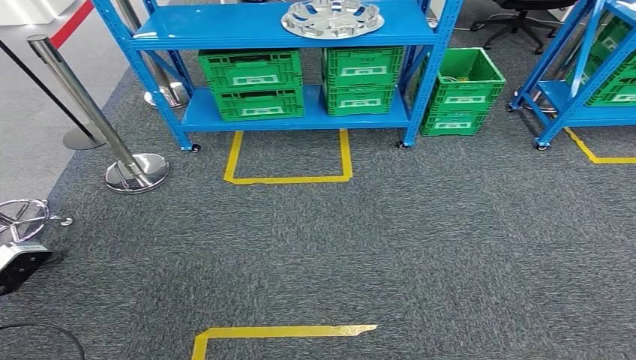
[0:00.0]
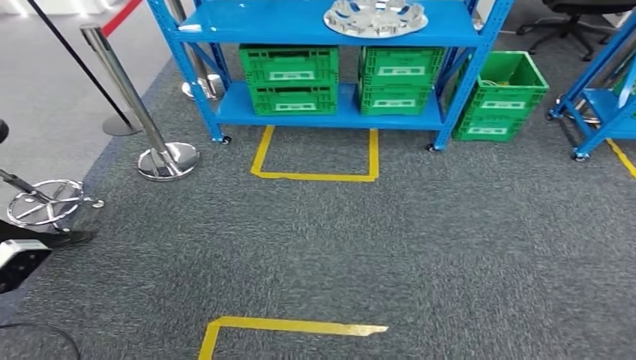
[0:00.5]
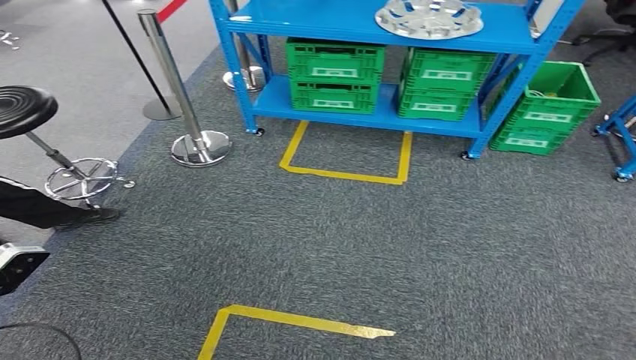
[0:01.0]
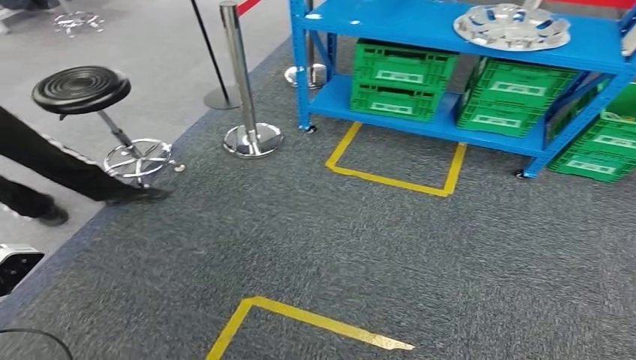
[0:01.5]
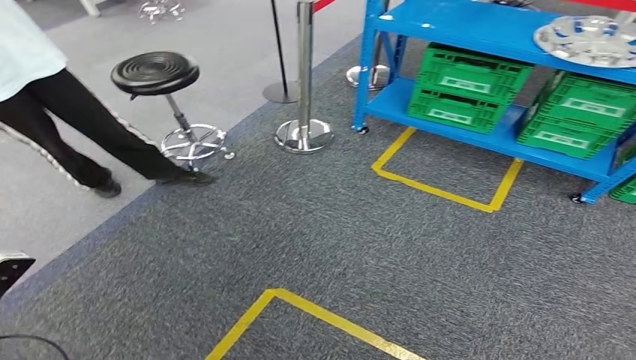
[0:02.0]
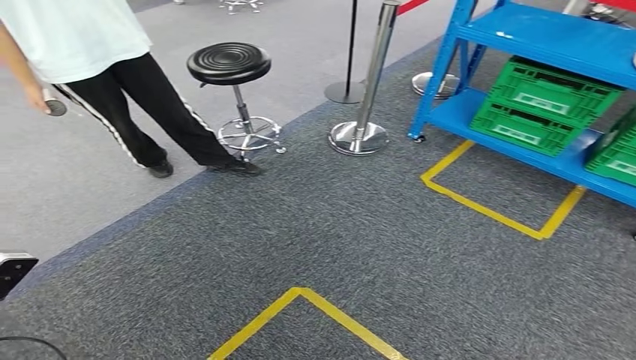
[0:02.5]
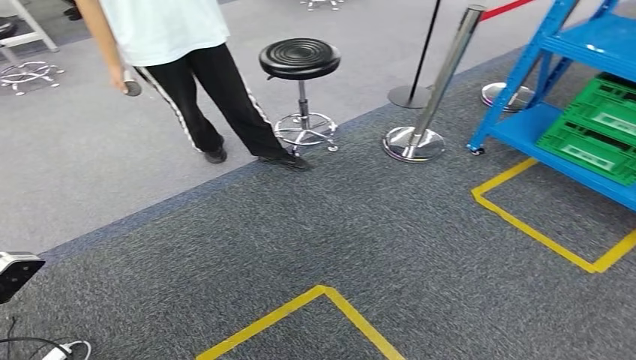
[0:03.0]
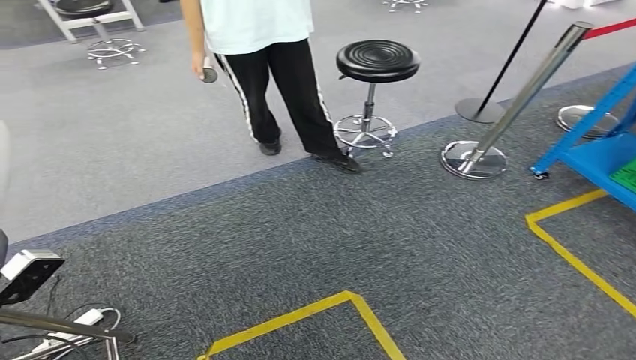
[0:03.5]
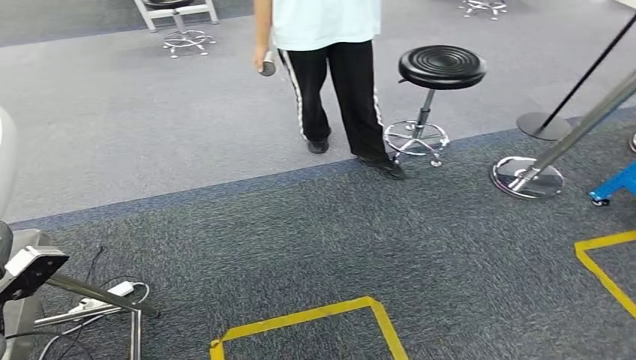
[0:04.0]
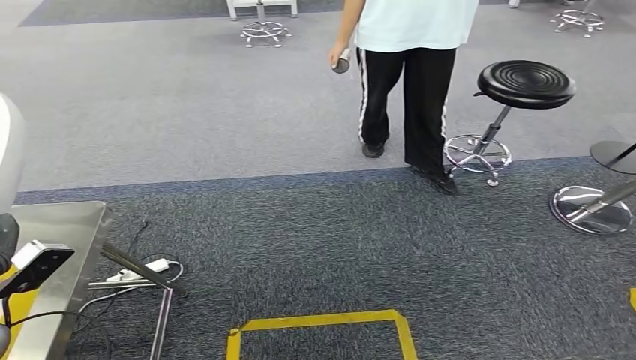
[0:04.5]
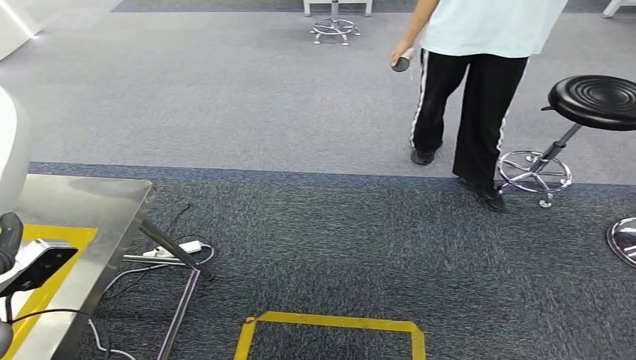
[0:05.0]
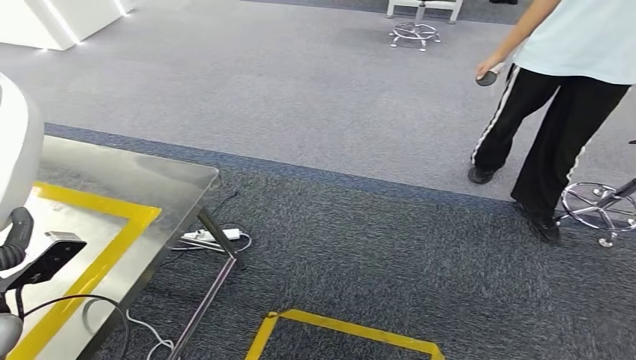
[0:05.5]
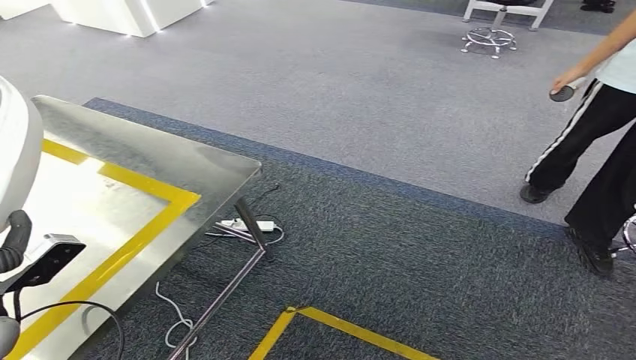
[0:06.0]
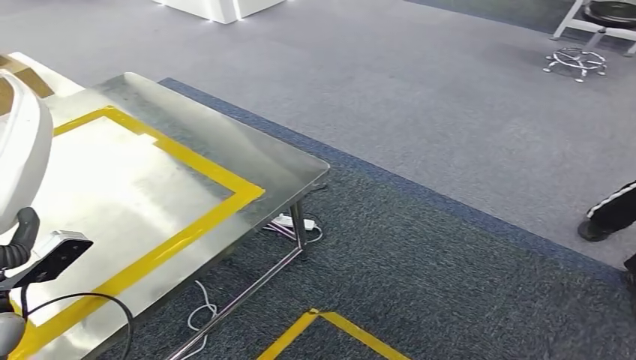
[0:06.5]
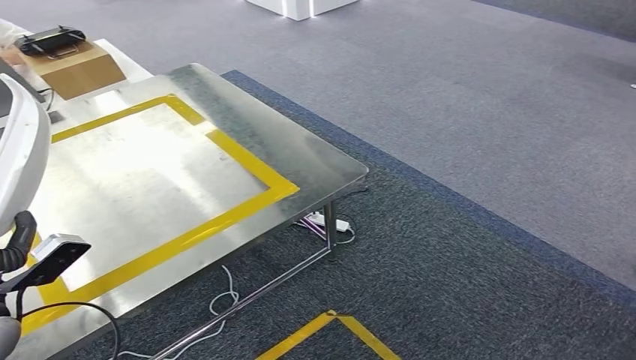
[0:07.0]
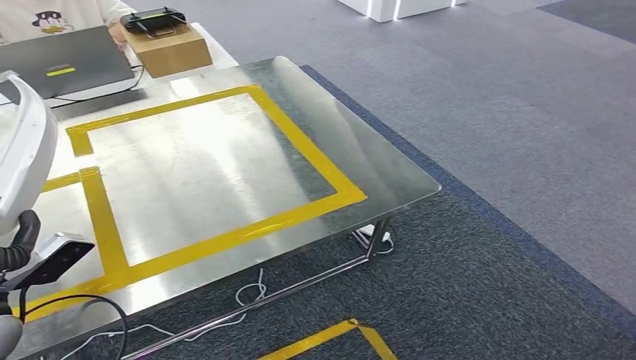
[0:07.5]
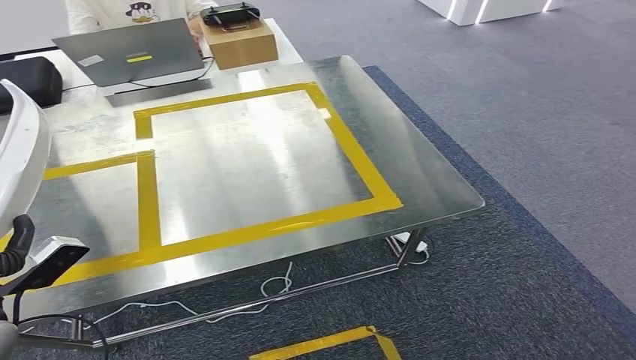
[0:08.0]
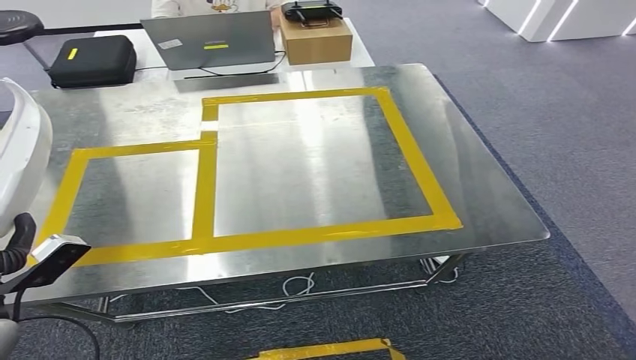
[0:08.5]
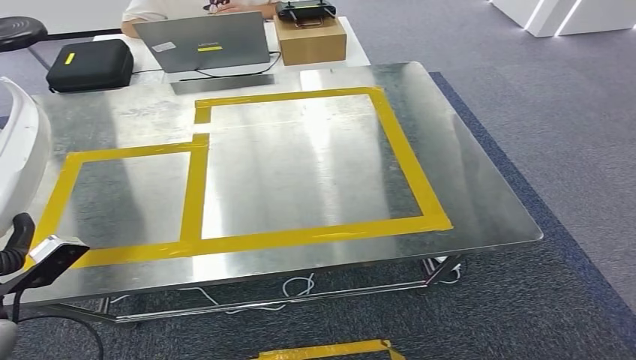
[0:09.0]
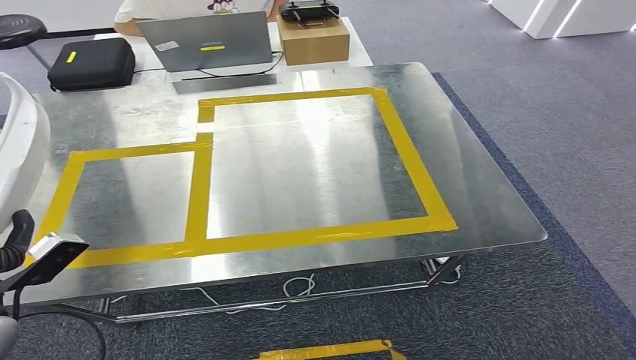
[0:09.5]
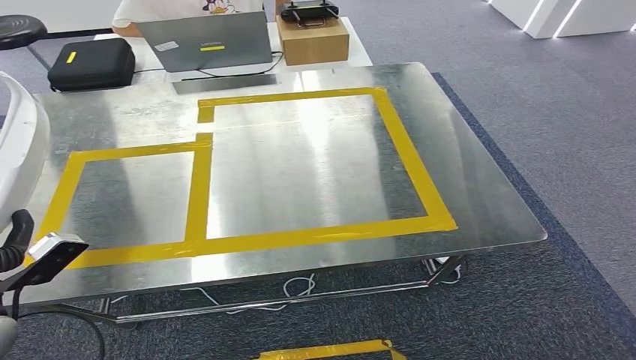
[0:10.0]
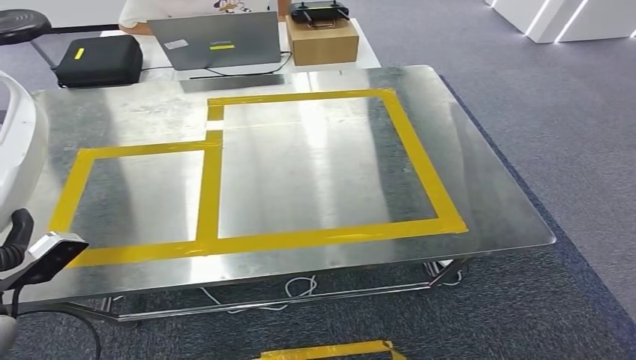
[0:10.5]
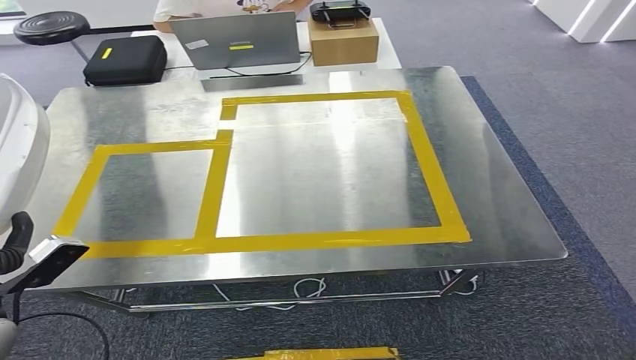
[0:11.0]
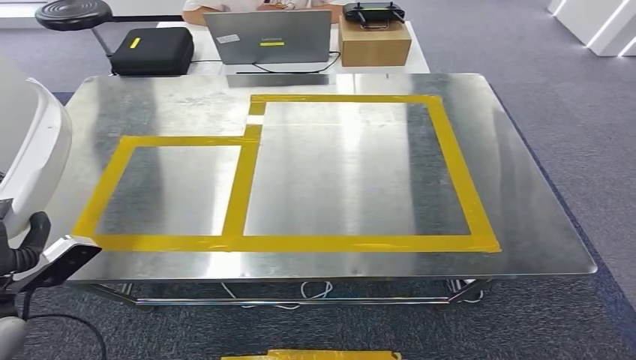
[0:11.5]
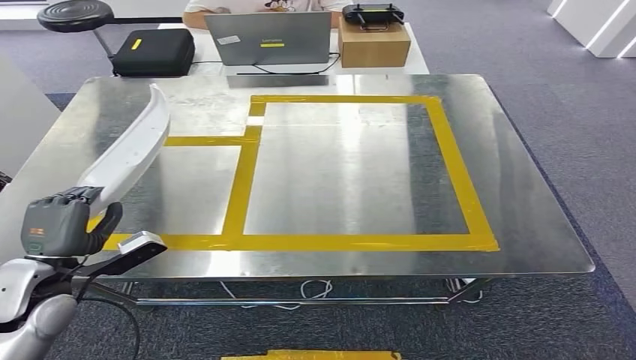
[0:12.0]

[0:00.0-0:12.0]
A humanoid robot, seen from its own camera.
Step, 0:00.0 to 0:08.5: Move the small component to the workbench.

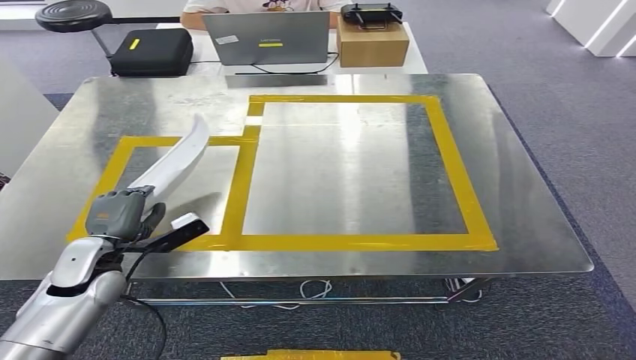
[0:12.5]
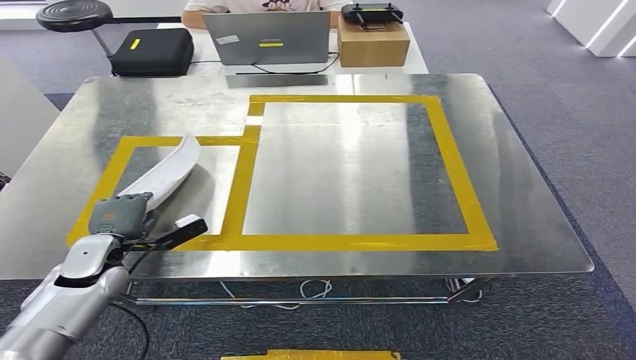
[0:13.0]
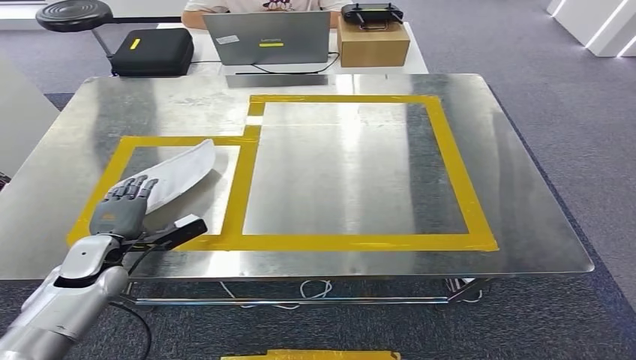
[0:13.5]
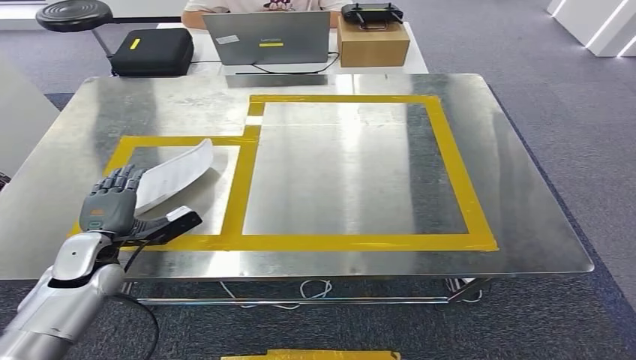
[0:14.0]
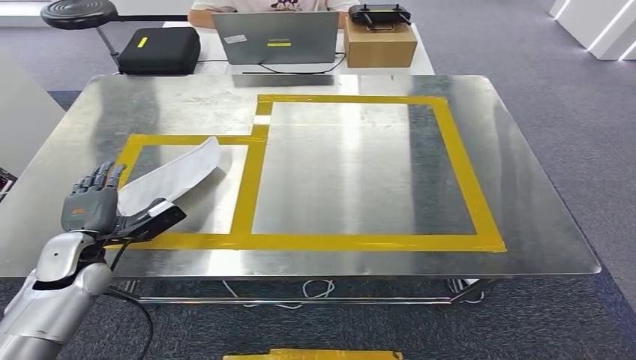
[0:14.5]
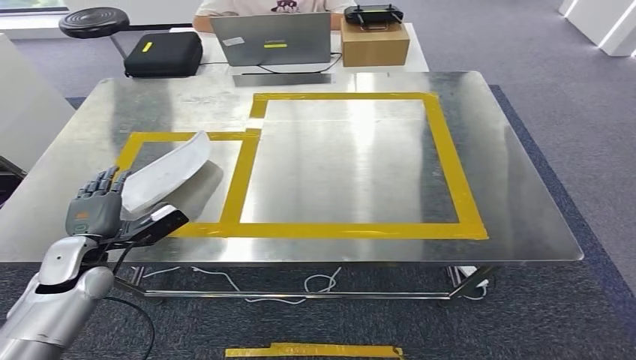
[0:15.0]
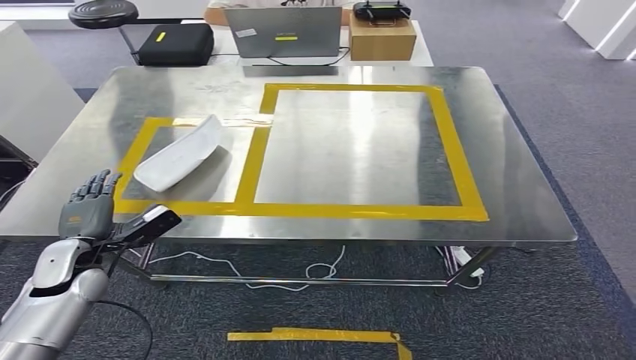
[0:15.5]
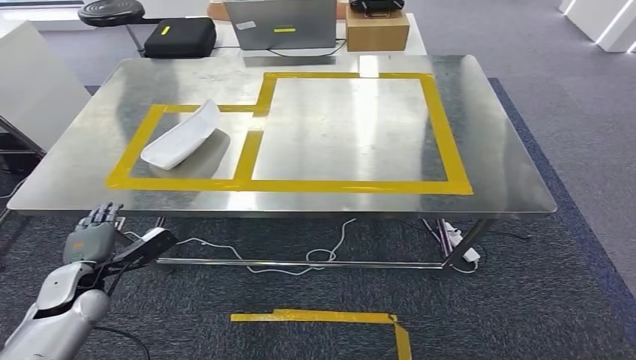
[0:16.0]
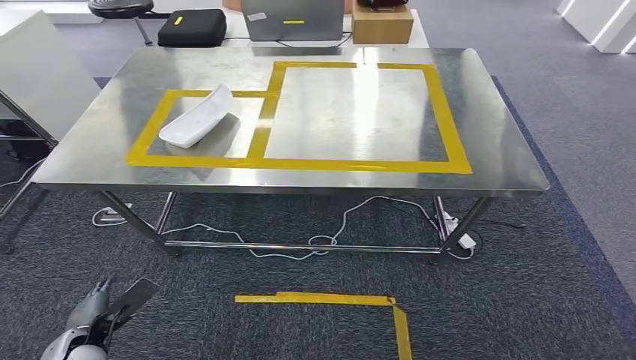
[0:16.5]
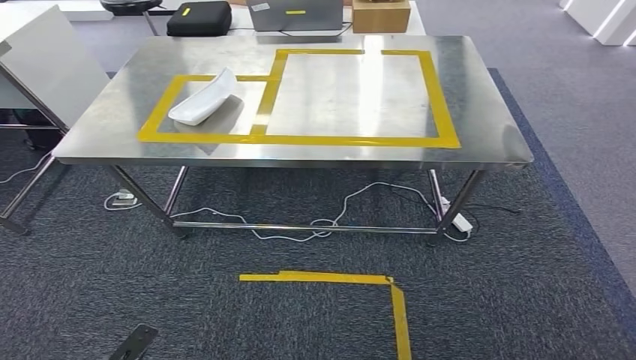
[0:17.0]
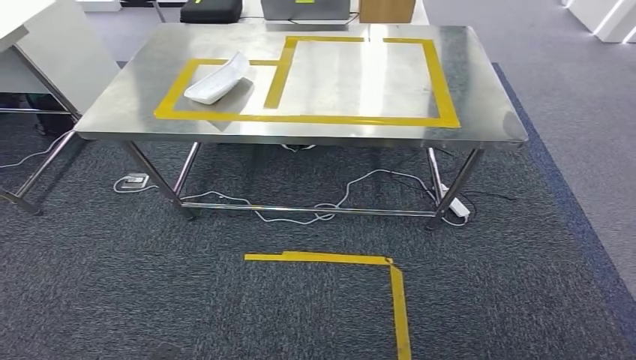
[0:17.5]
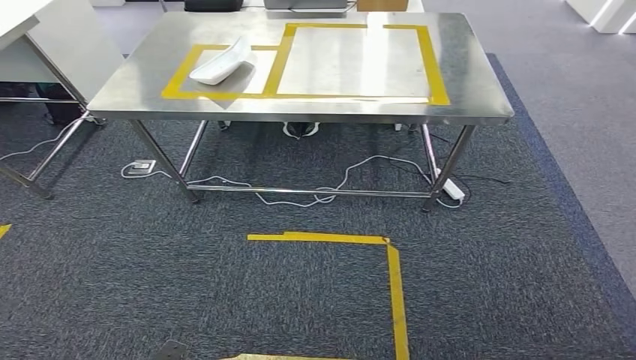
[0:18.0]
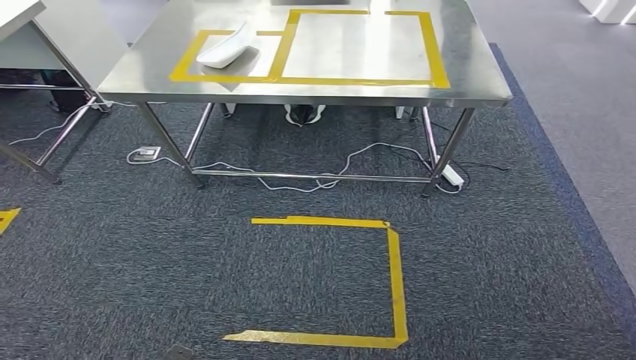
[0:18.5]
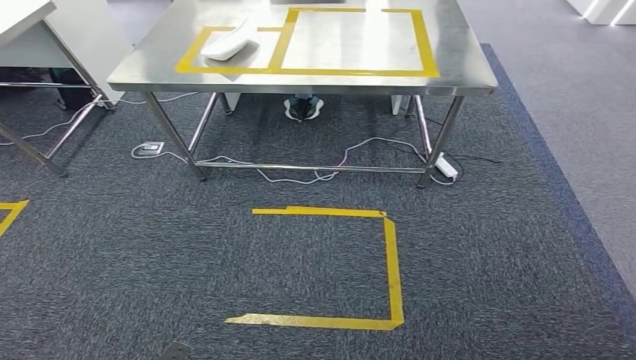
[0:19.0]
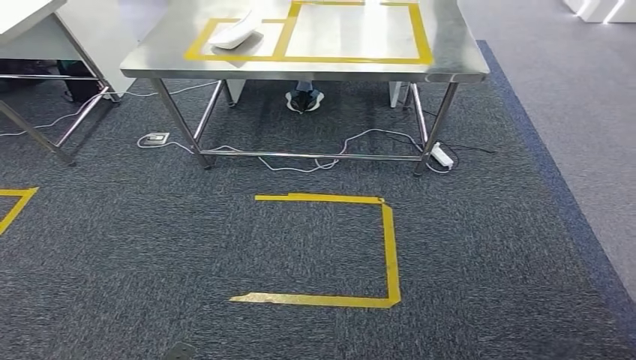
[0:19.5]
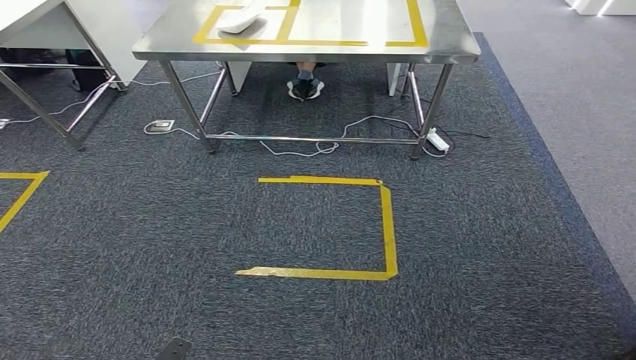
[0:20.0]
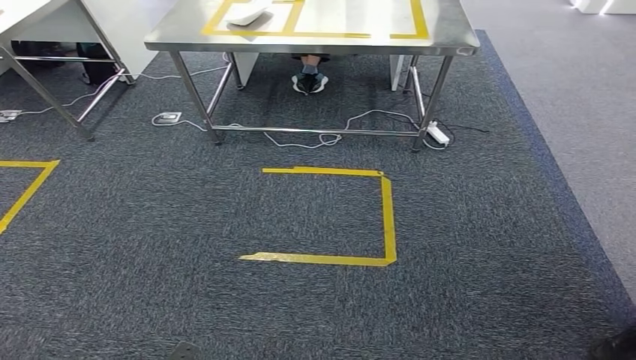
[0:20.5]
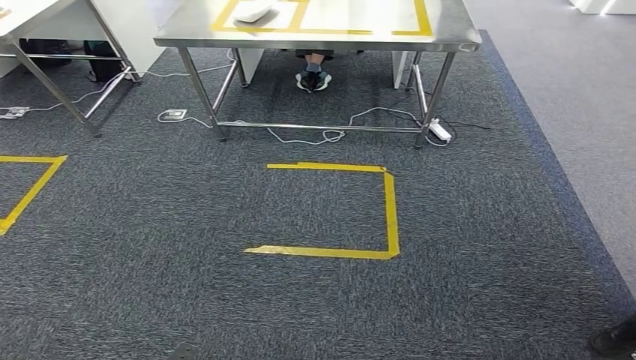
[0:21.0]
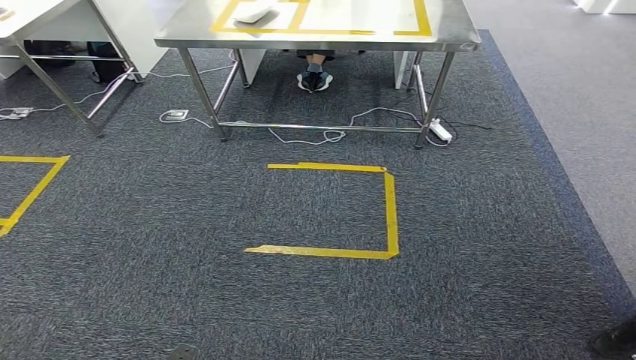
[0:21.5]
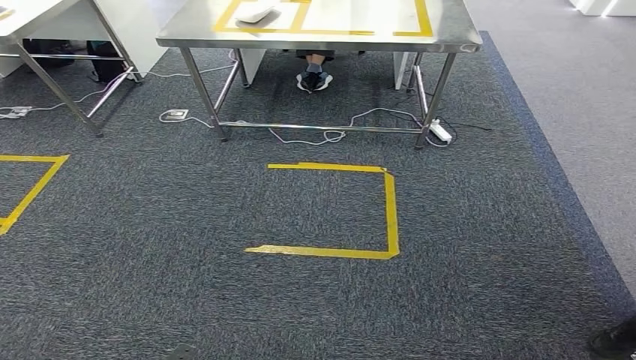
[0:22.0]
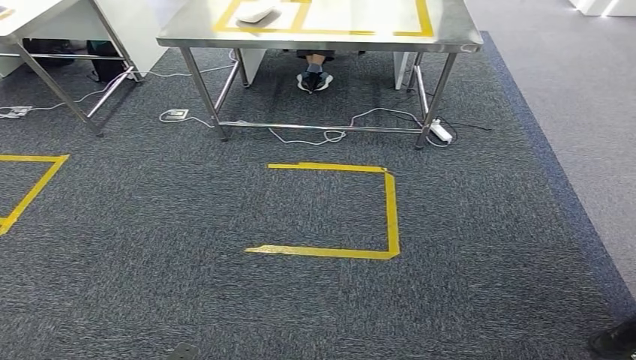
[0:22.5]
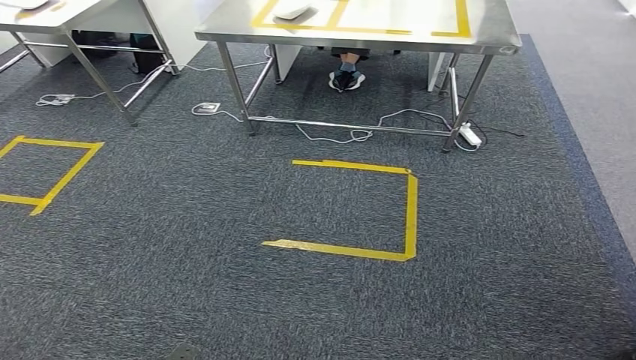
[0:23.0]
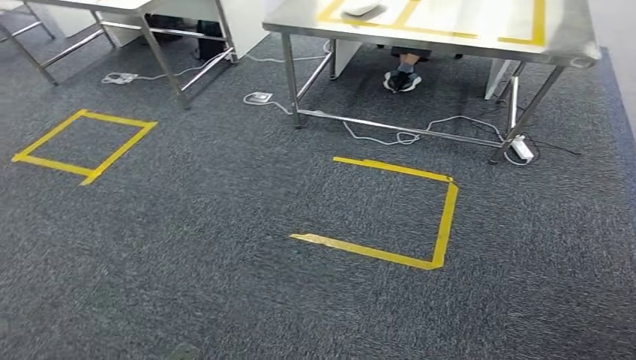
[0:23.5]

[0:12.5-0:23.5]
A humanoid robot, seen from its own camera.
Step, 0:12.5 to 0:19.5: Insert the small component into the corresponding slot on the workbench.
0:12.5 to 0:14.5: The hands stay close to where they were, moving slightly.
0:20.0 to 0:21.5: The hands make only small movements.
